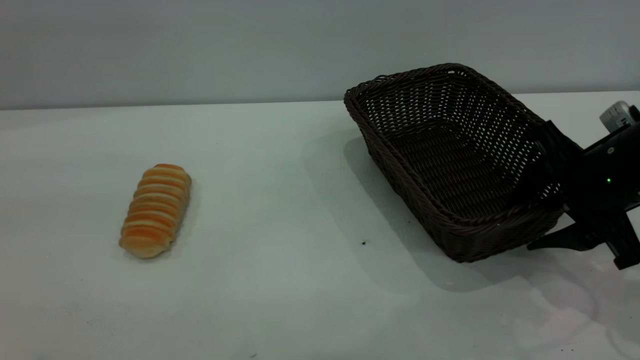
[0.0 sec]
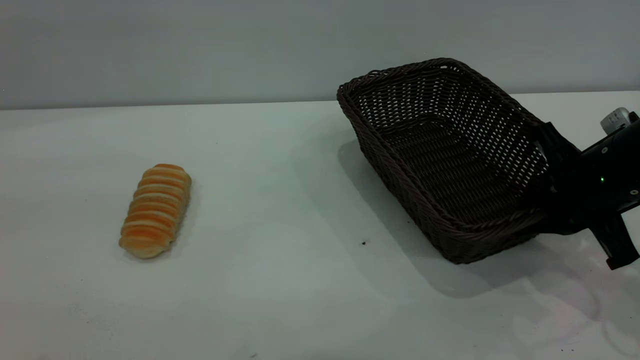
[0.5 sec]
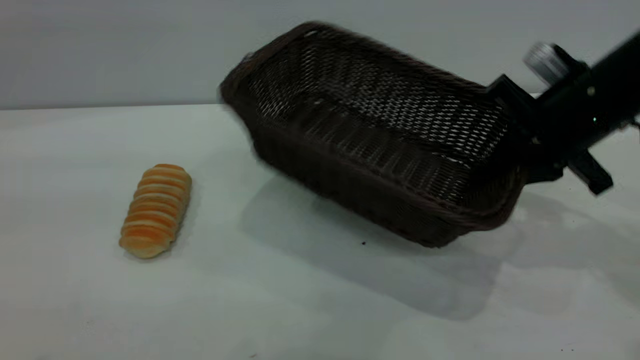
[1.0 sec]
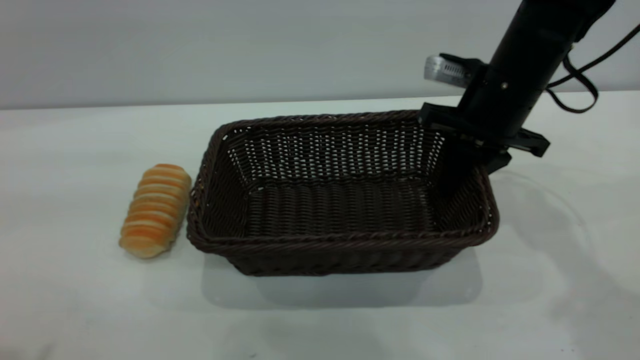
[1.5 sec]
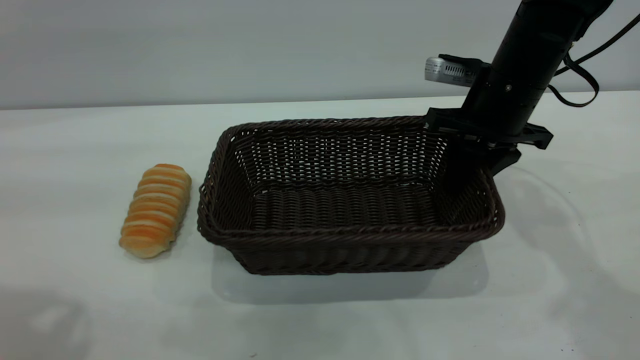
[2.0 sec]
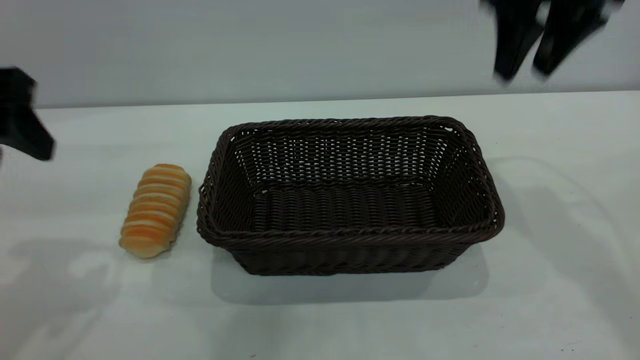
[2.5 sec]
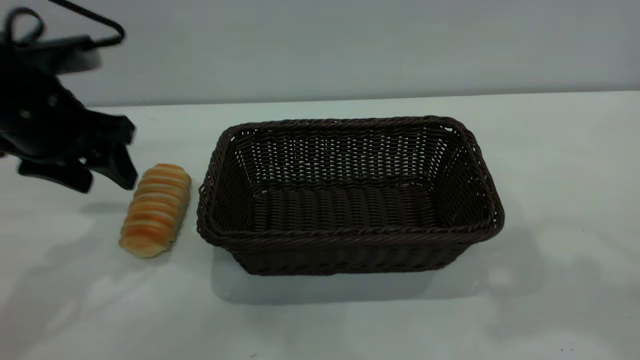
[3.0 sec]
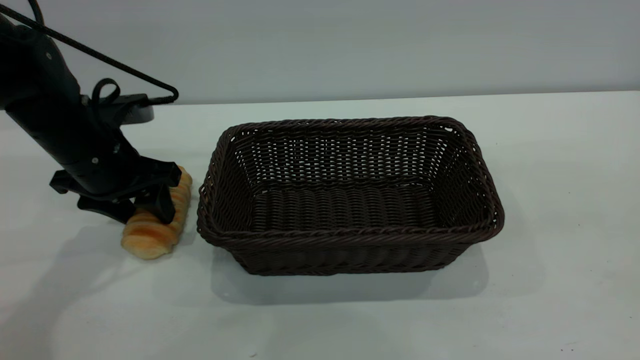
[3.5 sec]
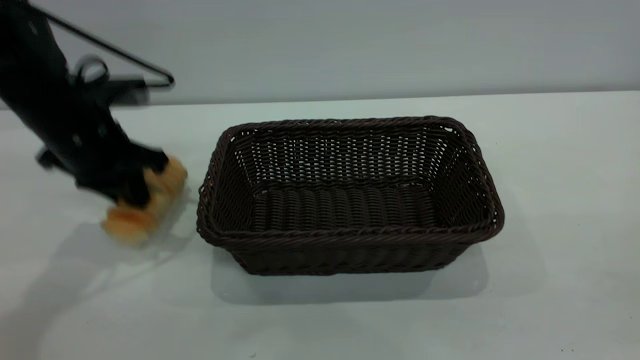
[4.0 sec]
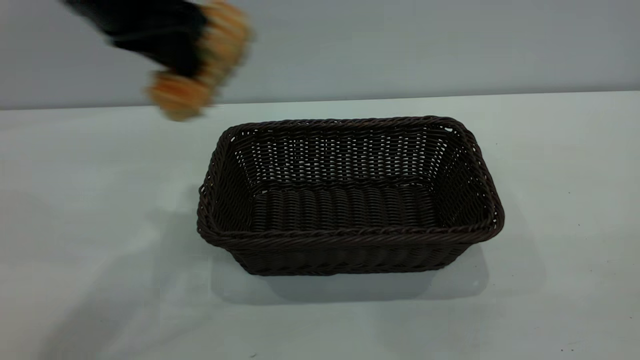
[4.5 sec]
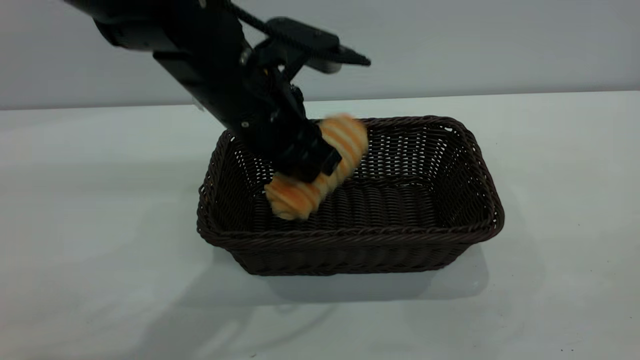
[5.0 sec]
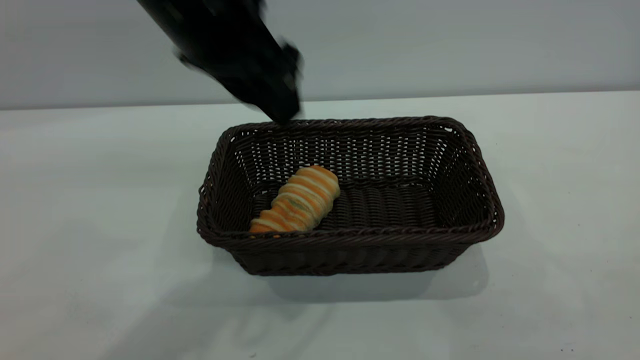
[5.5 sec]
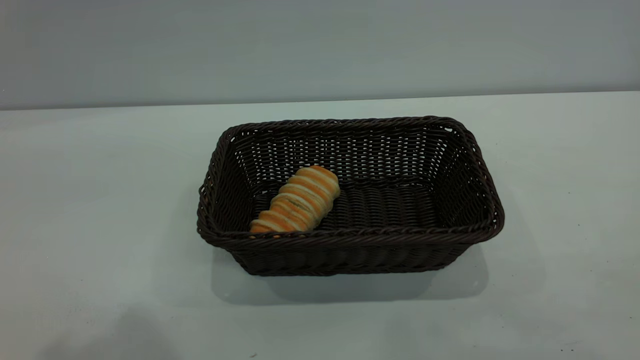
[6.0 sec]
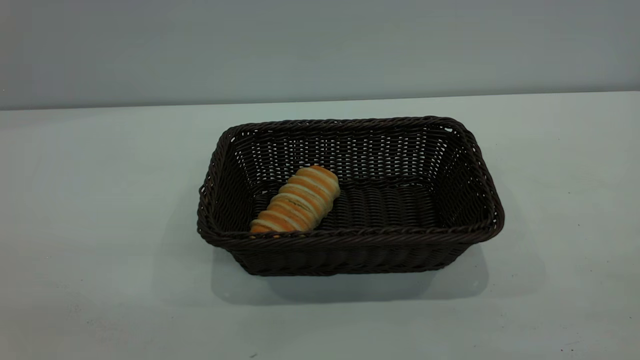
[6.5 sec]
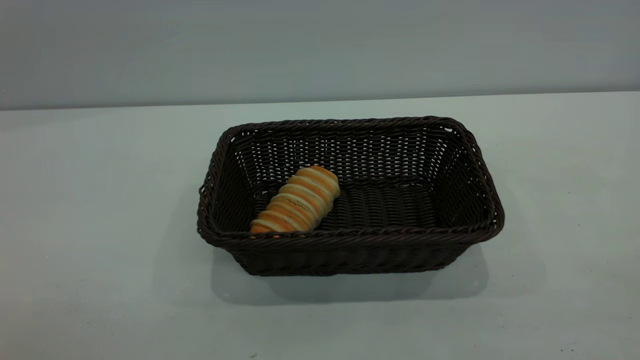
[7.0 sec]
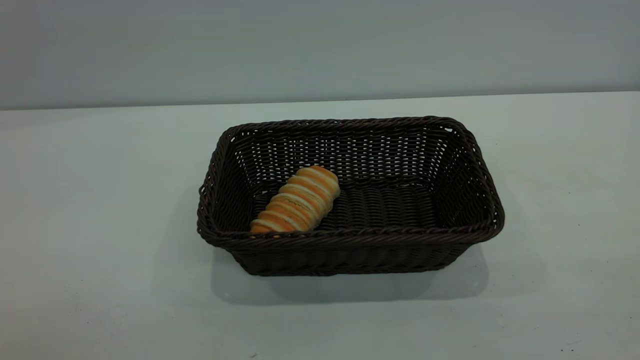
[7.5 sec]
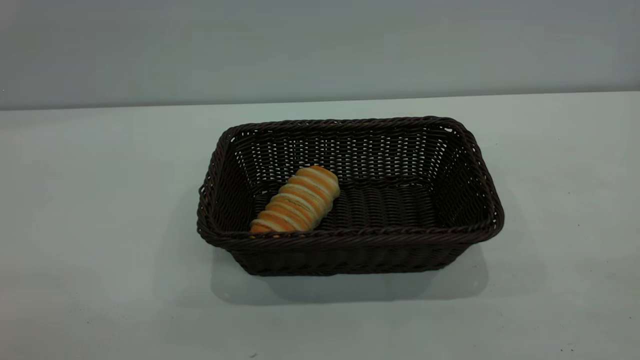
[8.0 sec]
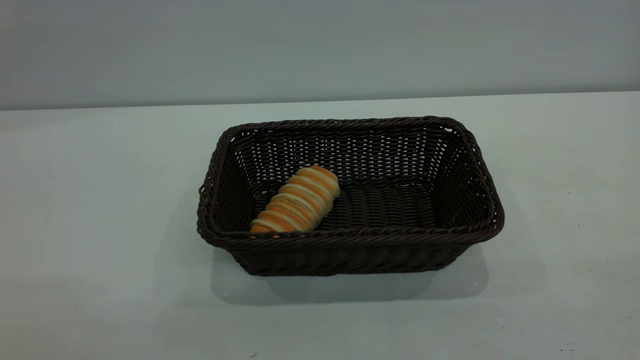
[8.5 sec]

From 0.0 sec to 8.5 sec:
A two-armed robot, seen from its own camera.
Task of the whole recording: One hand grasps the black basket and places it in the middle of the table, while the other hand picks up the long bread and puts it into the black basket.
Step, from 0.0 sec to 2.0 sec: Move the basket to the center of view.
Step, from 4.5 sec to 5.5 sec: place the bread into the basket.
From 0.0 sec to 2.0 sec: The right gripper goes some 15 cm forward and to the left, and closes and opens again; the left gripper moves forward and downward, some 10 cm.
From 2.0 sec to 4.0 sec: The left gripper shifts roughly 25 cm forward and downward, and closes; the right gripper travels backward and upward by approximately 40 cm.
From 4.0 sec to 6.5 sec: The left gripper is displaced backward and upward by some 40 cm, and opens.
